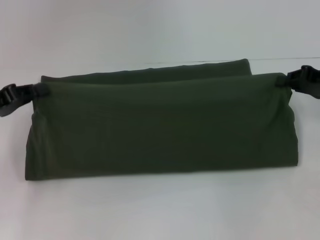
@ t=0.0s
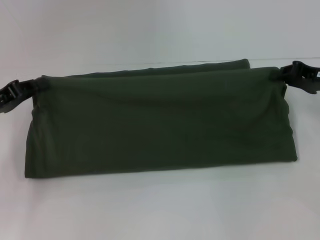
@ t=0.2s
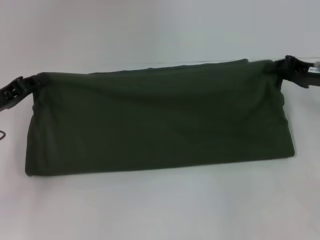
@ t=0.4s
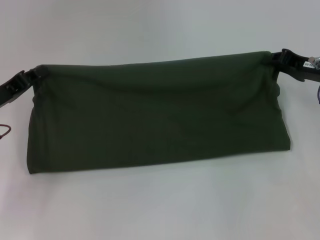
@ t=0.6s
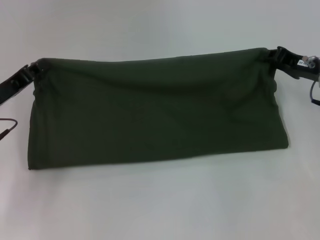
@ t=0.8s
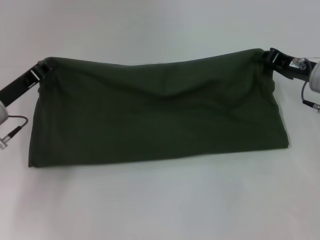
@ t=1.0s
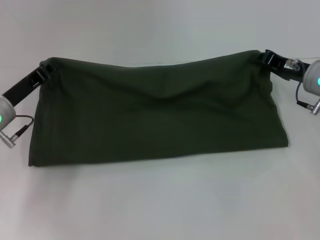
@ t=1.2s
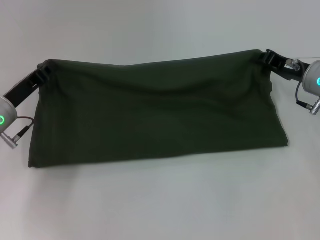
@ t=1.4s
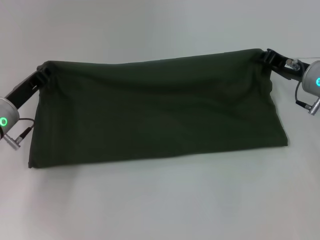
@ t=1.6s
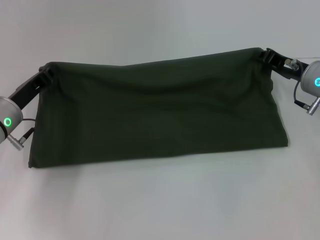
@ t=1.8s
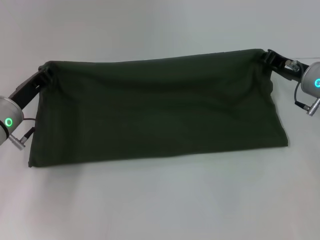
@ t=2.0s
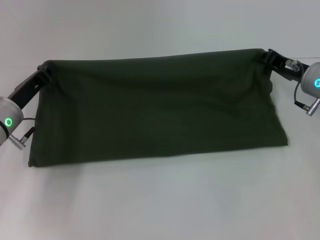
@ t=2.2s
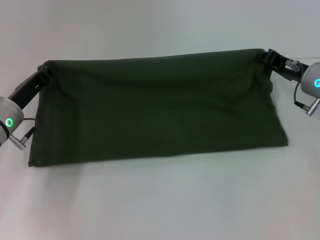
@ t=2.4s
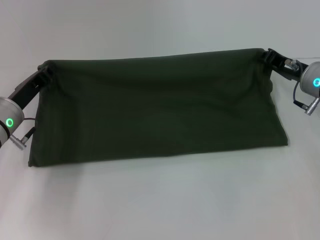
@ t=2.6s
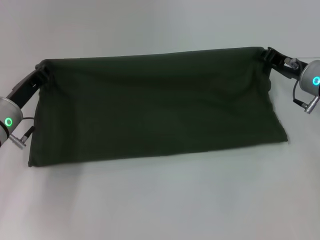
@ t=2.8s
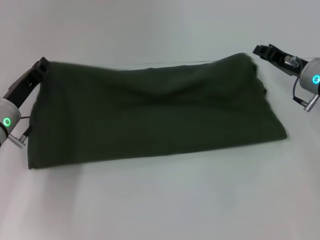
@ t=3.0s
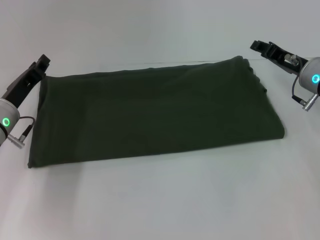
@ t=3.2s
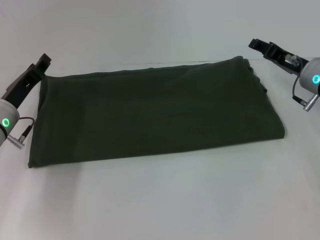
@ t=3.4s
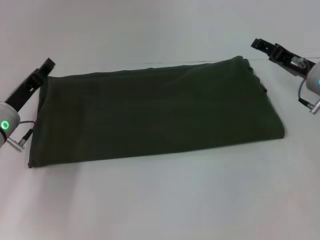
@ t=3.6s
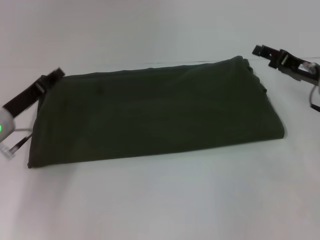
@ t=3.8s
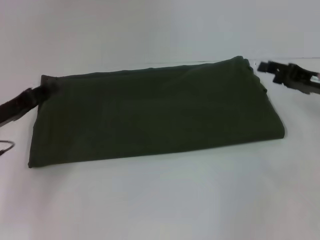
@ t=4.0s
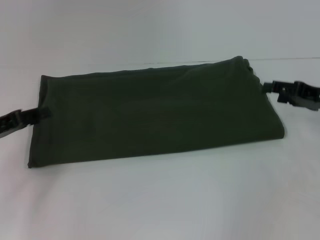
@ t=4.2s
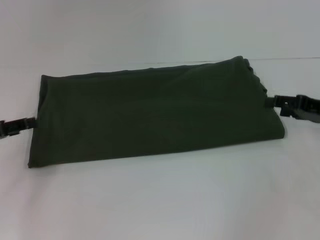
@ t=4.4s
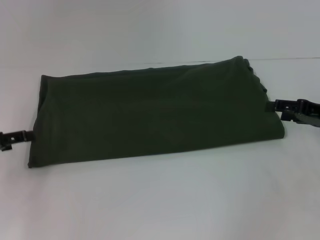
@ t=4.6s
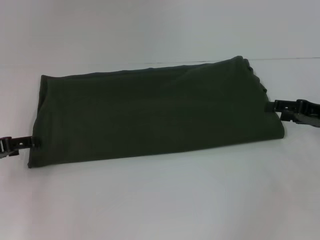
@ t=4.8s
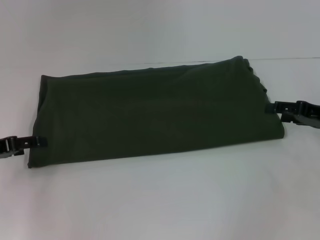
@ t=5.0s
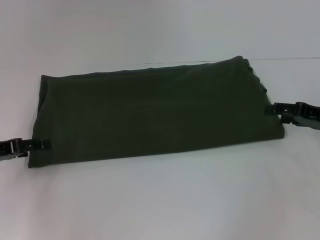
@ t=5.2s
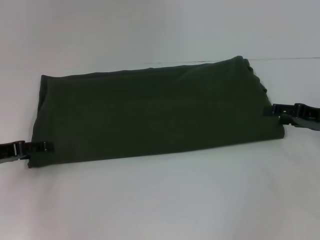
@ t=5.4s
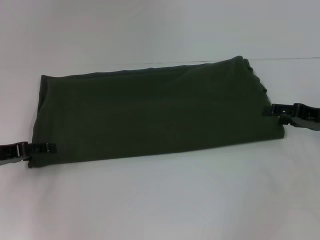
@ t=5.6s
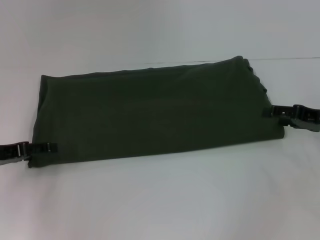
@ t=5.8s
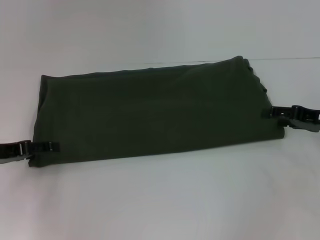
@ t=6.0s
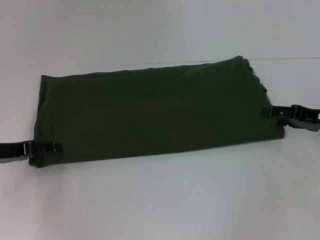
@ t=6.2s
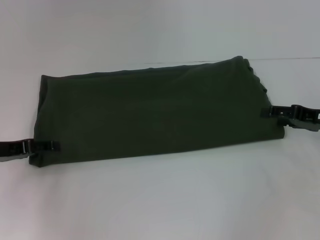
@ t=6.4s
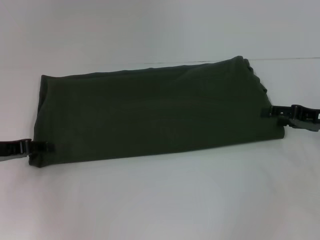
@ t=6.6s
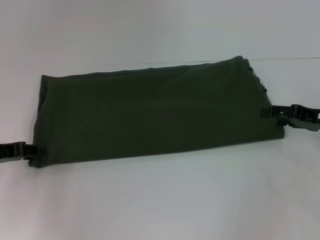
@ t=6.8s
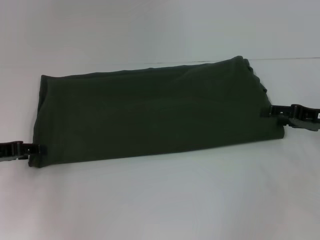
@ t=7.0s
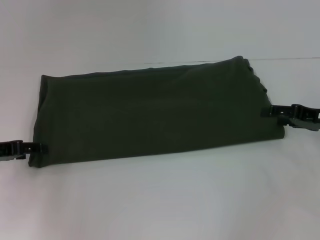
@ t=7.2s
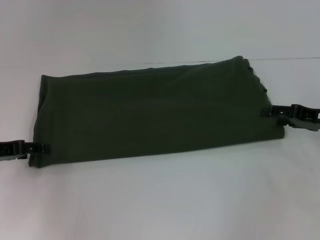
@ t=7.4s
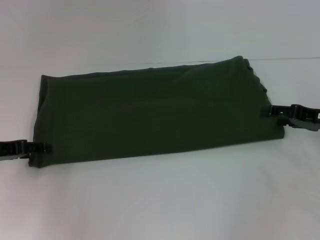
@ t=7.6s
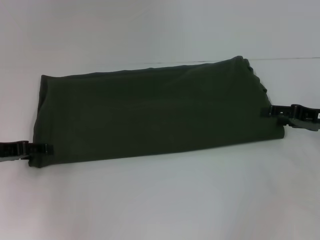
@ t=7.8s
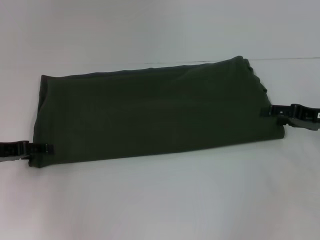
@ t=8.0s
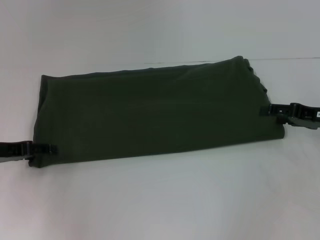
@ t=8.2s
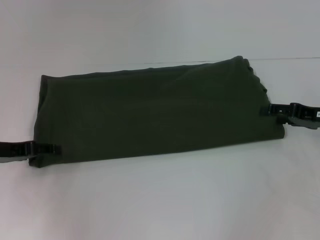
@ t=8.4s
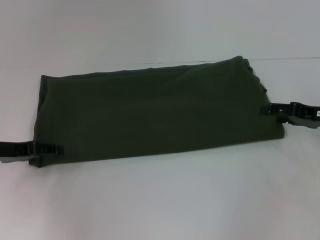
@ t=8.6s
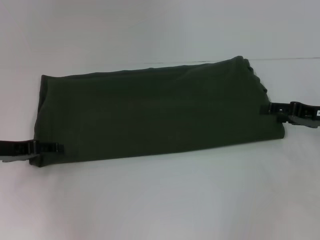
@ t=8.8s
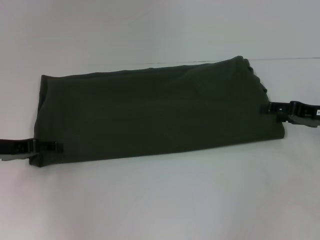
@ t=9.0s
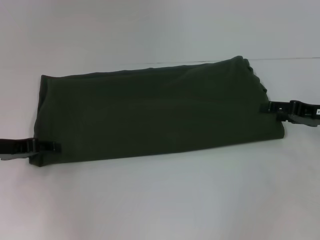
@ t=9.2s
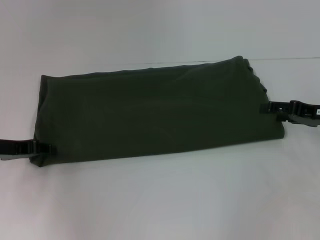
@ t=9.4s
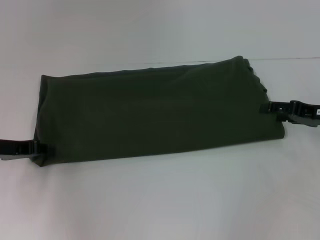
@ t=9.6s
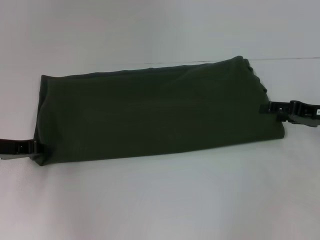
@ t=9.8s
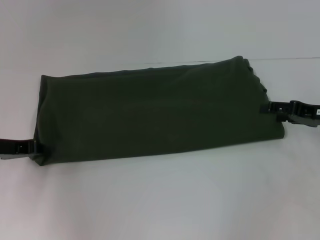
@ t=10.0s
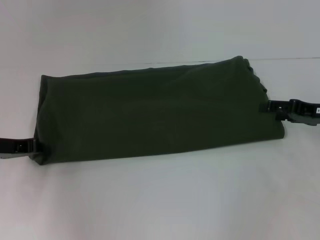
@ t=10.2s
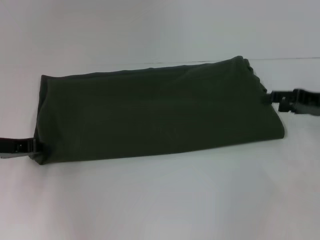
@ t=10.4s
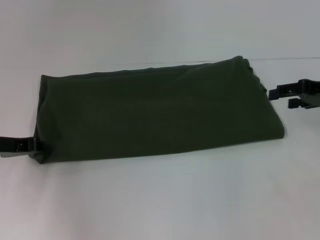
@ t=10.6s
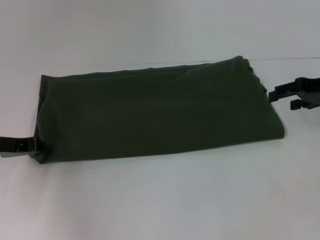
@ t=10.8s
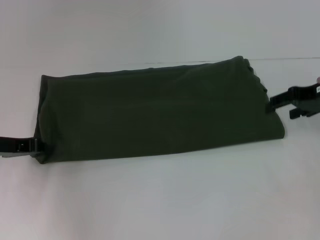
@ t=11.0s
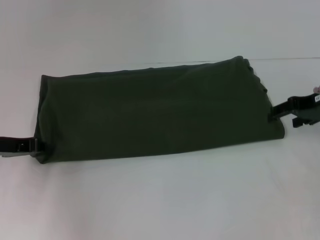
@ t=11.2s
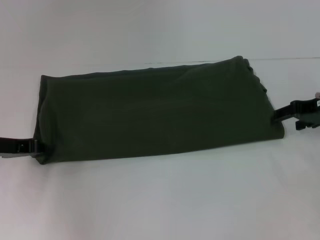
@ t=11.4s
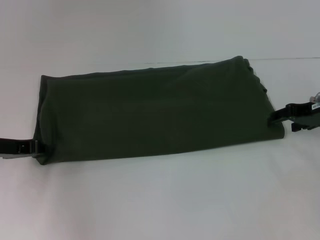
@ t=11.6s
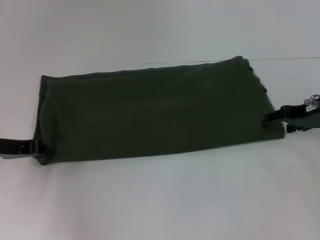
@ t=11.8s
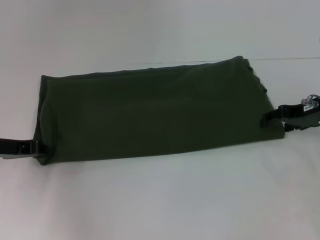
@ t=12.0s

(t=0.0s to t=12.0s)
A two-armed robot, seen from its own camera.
Step, t=0.0s - t=3.4s: Fold the clothes with your left hand.
Step, t=0.0s - t=3.4s: Fold the clothes with your right hand.
t=0.0s - t=1.6s: The right gripper travels to the left by roughly 5 cm; the left gripper travels to the right and downward by some 10 cm.
t=1.6s - t=3.0s: The grippers make only small movements.
t=3.0s - t=4.4s: The right gripper shifts roughly 10 cm to the right and backward, and opens. Meanwhile the left gripper heads to the left and backward, covering approximately 10 cm, and opens.
t=4.4s - t=6.0s: There are only small adjustments of the grippers.
t=7.6s - t=9.0s: The grippers make only small movements.
t=9.0s - t=10.4s: The left gripper closes up.
t=10.4s - t=12.0s: The right gripper shifts by roughly 5 cm.

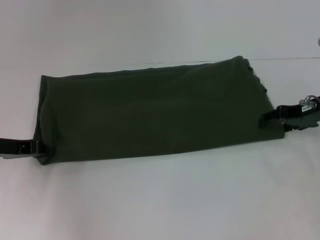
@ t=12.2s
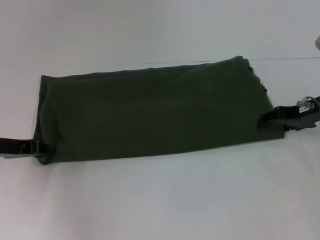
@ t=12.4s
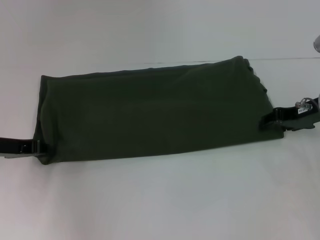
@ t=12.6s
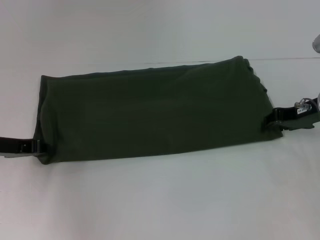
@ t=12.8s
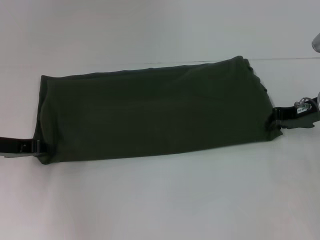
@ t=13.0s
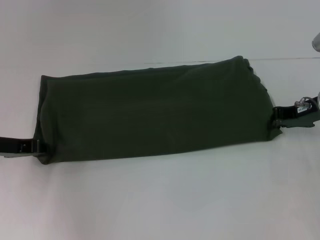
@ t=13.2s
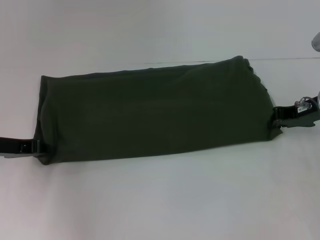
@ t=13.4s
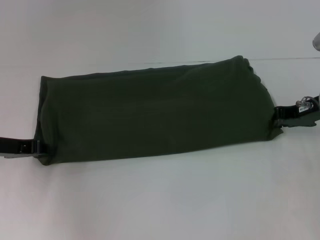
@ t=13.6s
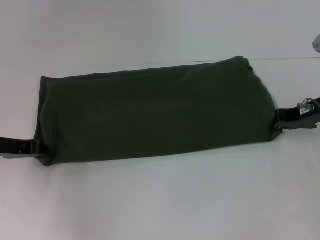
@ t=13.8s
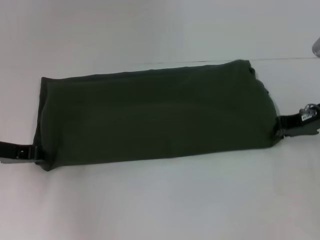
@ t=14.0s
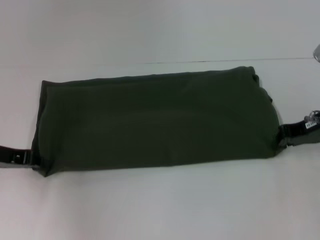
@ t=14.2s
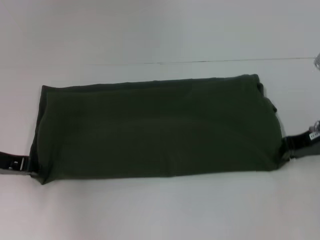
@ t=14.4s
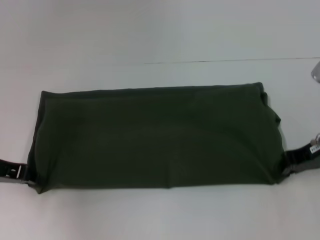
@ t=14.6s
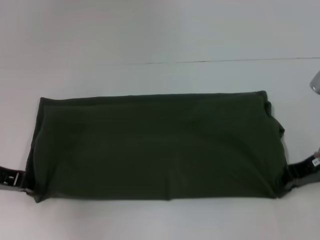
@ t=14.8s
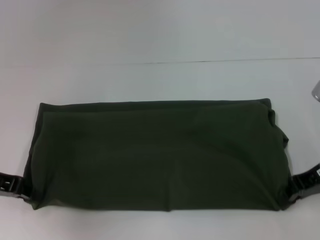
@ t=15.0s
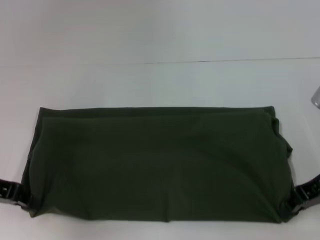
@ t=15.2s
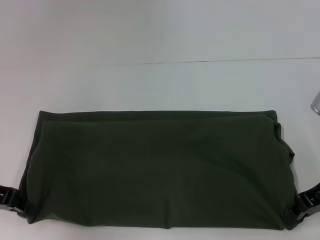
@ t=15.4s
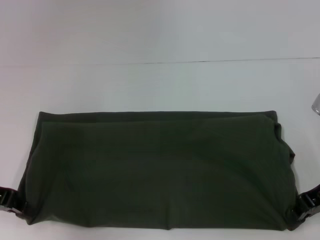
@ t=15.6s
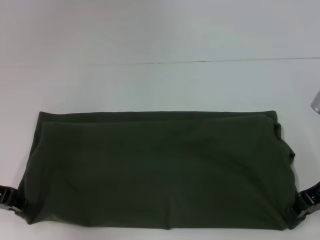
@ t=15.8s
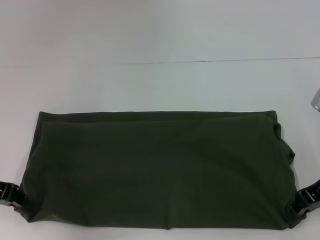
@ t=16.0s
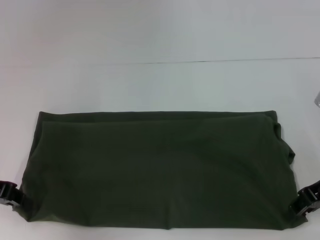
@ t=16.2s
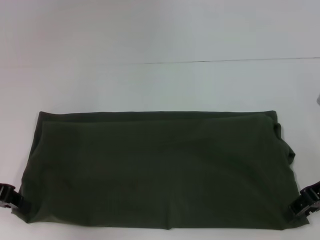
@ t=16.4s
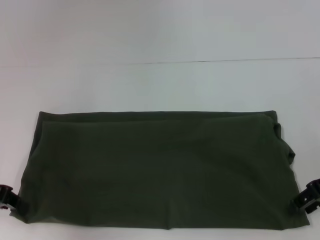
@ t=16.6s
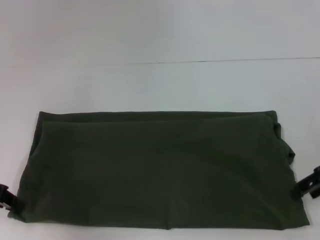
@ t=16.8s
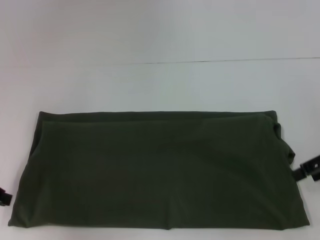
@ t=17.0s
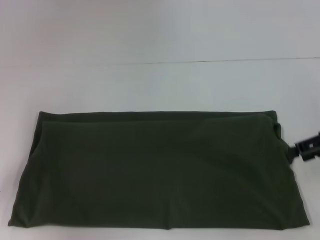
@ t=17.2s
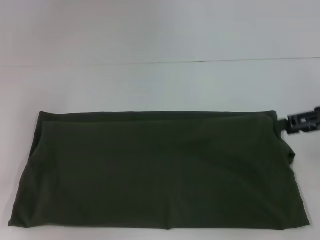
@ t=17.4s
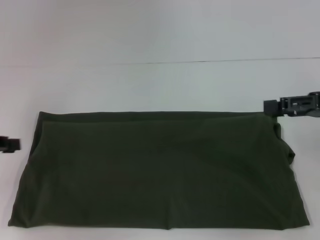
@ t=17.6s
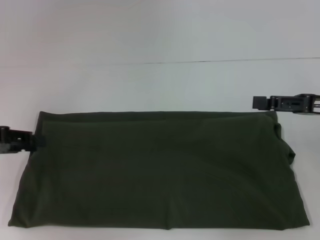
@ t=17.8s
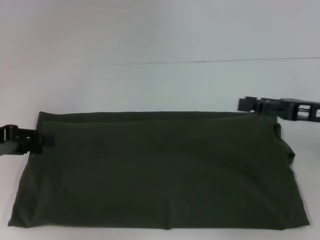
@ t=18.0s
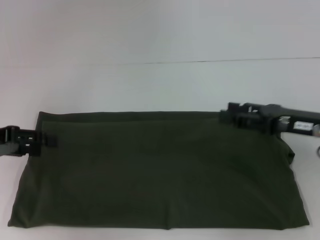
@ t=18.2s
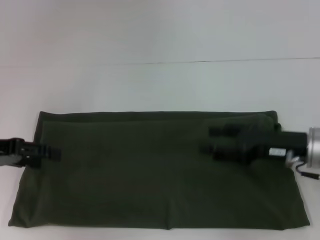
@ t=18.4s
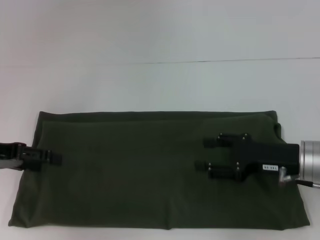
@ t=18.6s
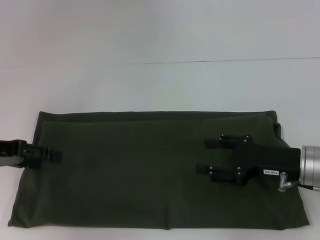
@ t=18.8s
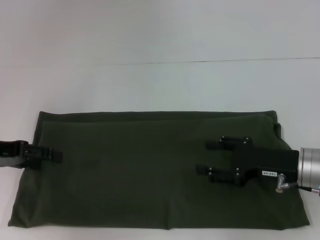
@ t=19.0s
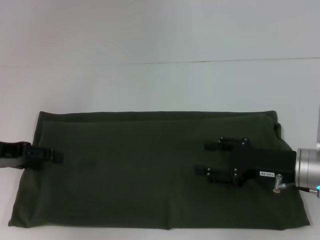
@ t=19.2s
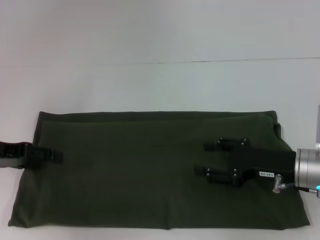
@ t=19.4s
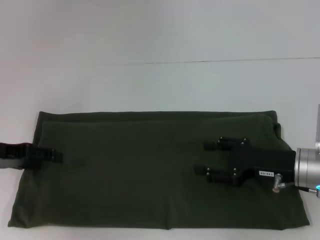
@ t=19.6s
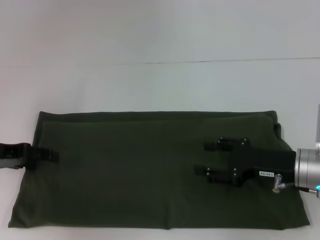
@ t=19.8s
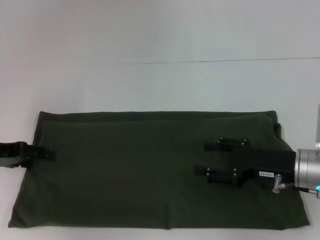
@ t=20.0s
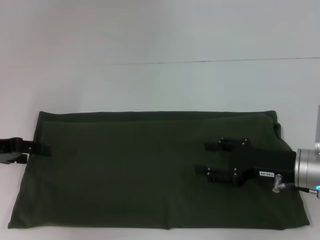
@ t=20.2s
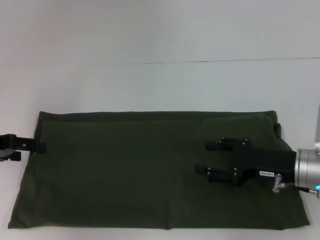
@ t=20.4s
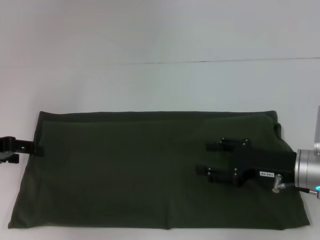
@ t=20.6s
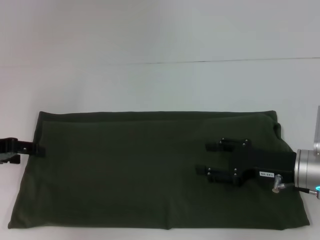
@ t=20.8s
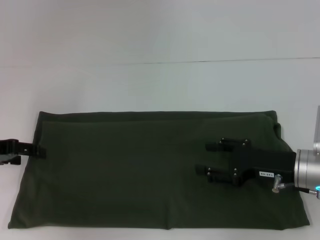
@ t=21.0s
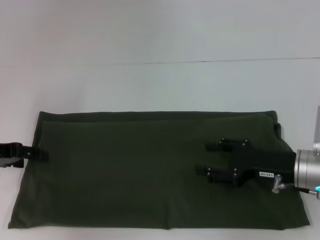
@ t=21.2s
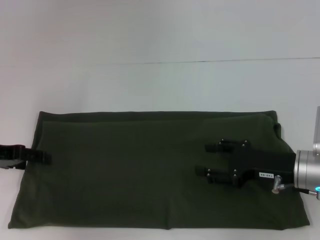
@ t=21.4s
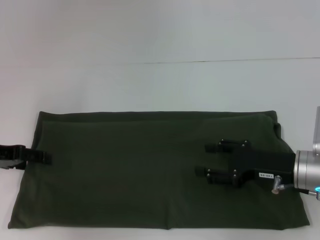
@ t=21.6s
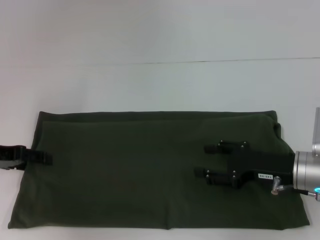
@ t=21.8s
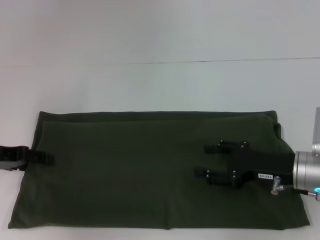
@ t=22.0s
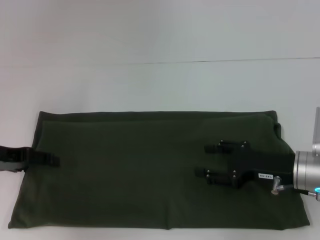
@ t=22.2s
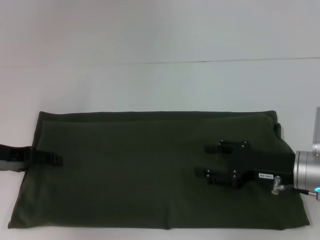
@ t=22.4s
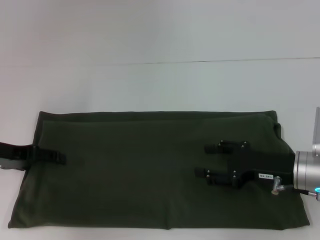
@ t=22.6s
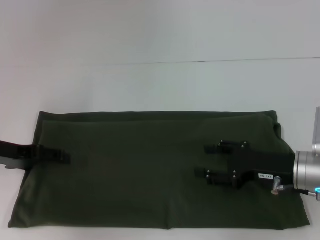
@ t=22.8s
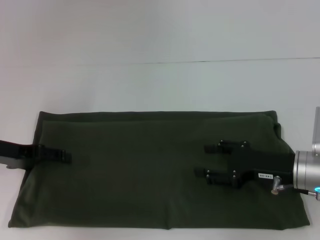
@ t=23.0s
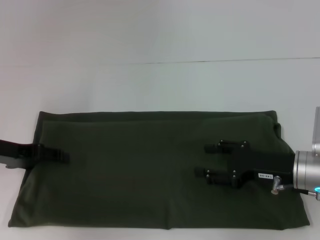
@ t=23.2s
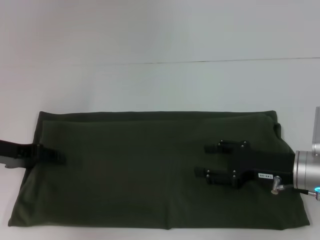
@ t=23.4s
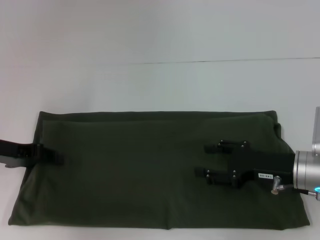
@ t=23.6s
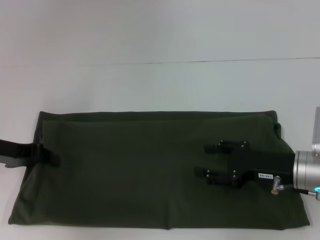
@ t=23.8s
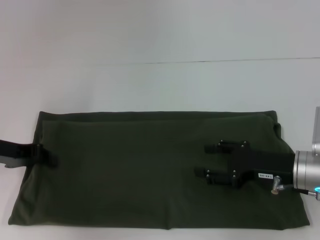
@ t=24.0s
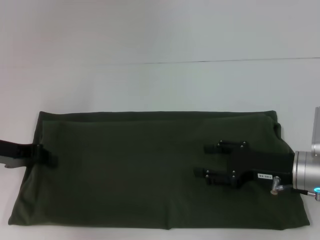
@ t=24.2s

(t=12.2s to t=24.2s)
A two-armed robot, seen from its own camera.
Step, t=12.2s - t=15.8s: Pull the clothes with your left hand.
Step, t=12.2s - t=15.8s: Pull the clothes with your right hand.
t=12.2s - t=13.8s: The right gripper closes its fingers.
t=13.8s - t=15.2s: The left gripper moves some 5 cm. The right gripper is displaced backward by approximately 5 cm.
t=15.2s - t=16.6s: The right gripper opens its fingers.
t=16.6s - t=18.2s: The left gripper opens up.
t=18.2s - t=19.8s: The right gripper is displaced downward by about 5 cm; the left gripper opens.
t=21.2s - t=22.6s: There are only small adjustments of the grippers.
t=22.6s - t=24.2s: The left gripper closes its fingers.
